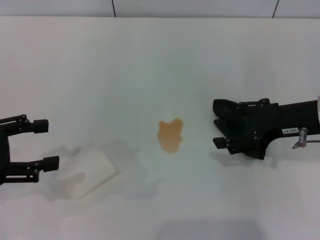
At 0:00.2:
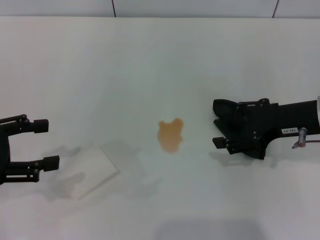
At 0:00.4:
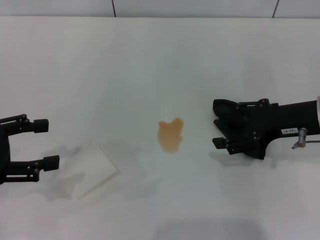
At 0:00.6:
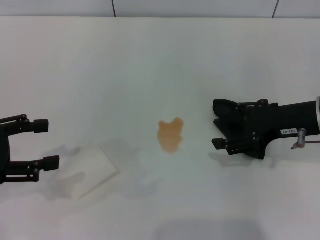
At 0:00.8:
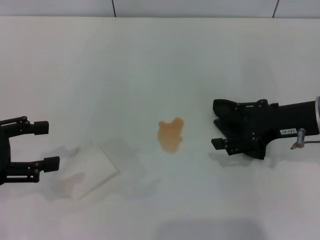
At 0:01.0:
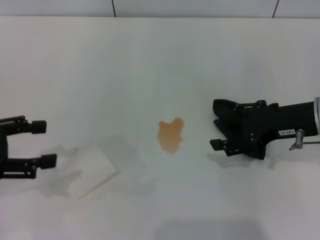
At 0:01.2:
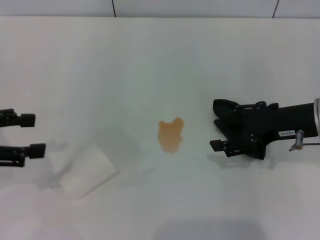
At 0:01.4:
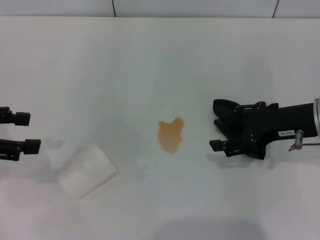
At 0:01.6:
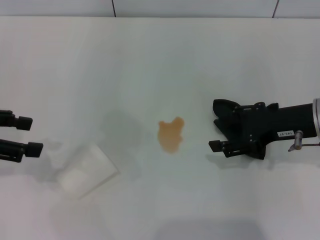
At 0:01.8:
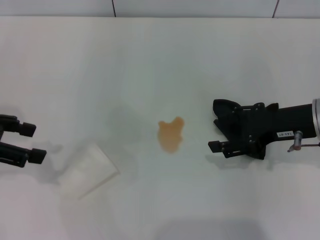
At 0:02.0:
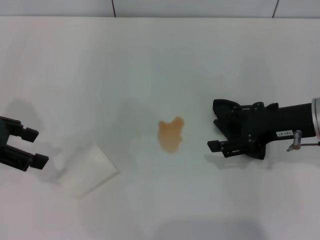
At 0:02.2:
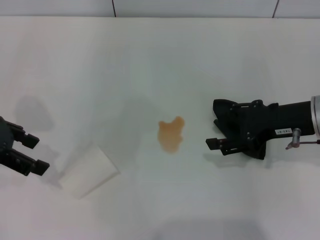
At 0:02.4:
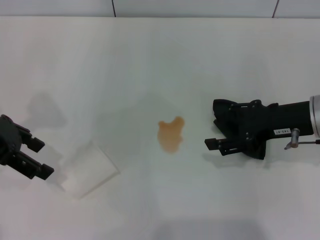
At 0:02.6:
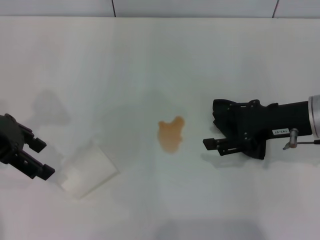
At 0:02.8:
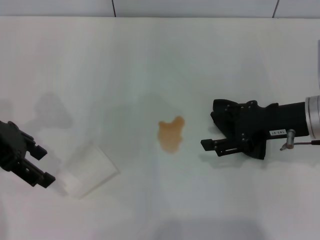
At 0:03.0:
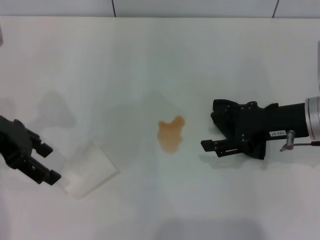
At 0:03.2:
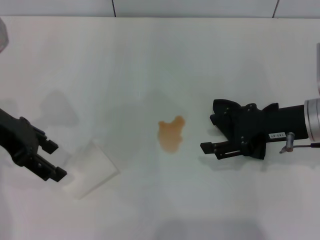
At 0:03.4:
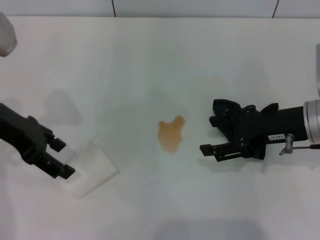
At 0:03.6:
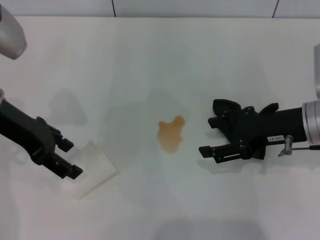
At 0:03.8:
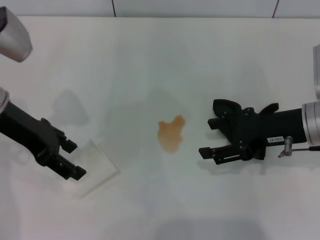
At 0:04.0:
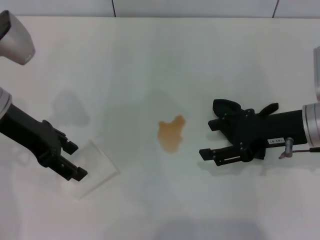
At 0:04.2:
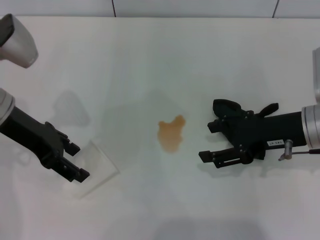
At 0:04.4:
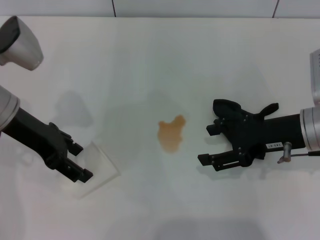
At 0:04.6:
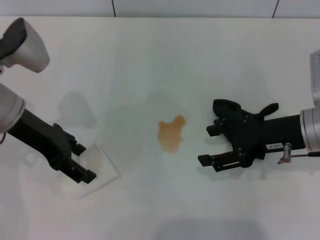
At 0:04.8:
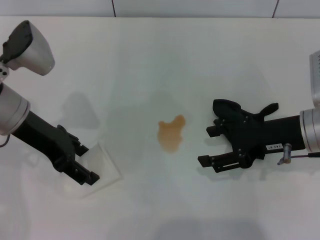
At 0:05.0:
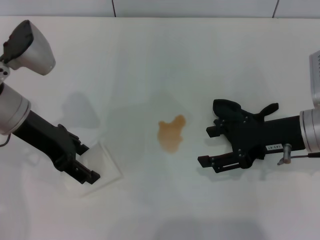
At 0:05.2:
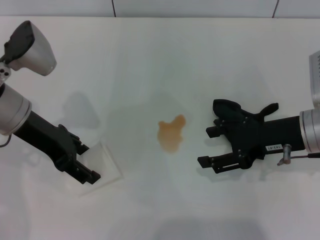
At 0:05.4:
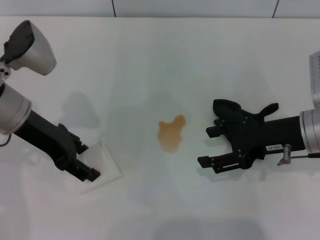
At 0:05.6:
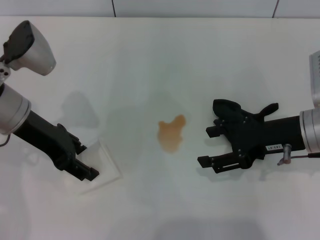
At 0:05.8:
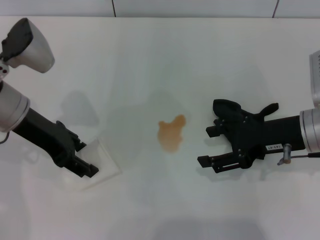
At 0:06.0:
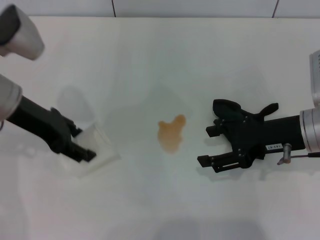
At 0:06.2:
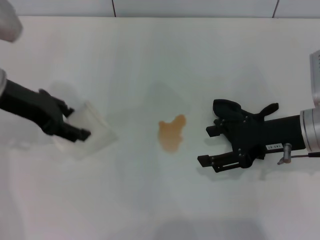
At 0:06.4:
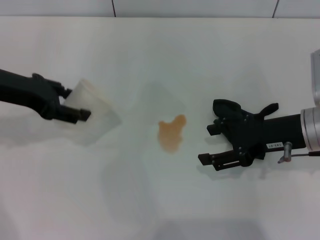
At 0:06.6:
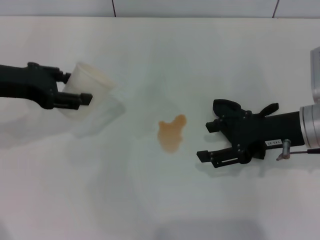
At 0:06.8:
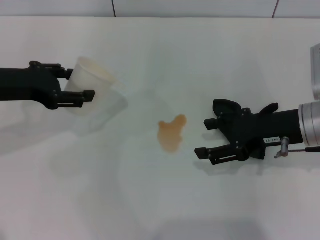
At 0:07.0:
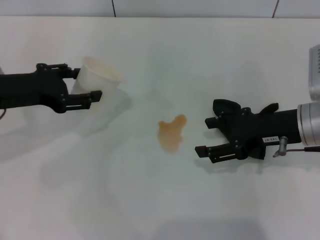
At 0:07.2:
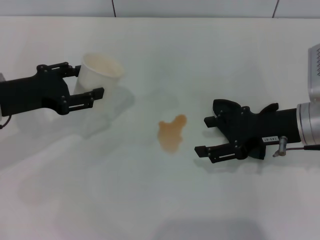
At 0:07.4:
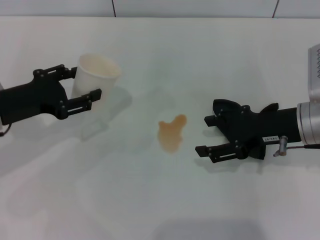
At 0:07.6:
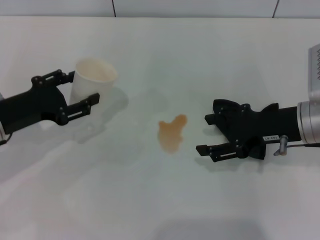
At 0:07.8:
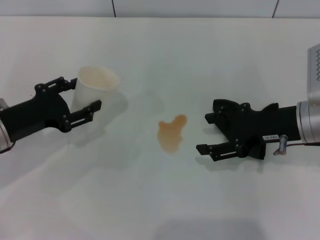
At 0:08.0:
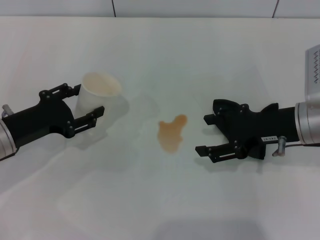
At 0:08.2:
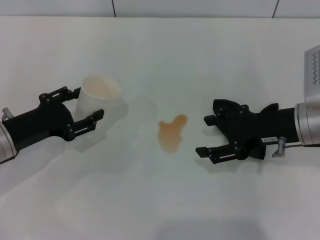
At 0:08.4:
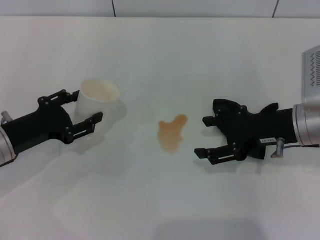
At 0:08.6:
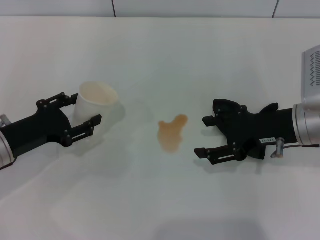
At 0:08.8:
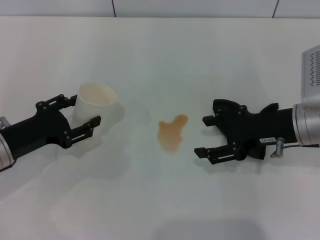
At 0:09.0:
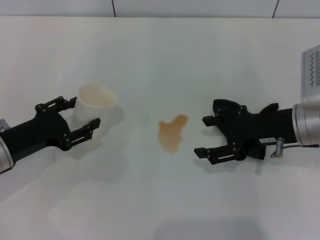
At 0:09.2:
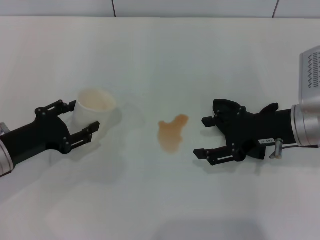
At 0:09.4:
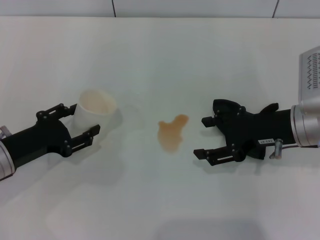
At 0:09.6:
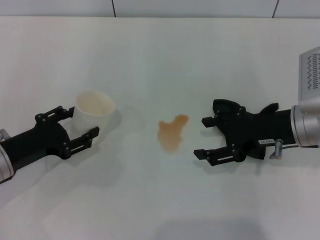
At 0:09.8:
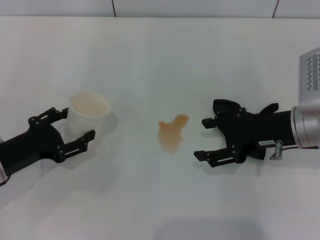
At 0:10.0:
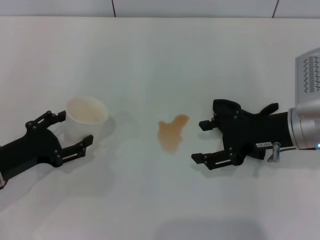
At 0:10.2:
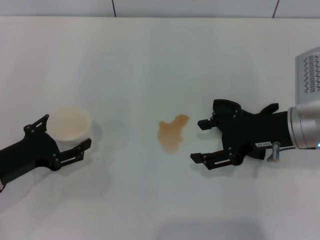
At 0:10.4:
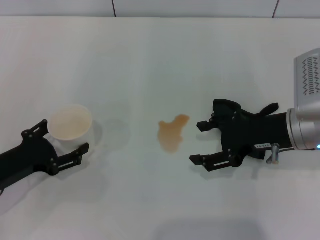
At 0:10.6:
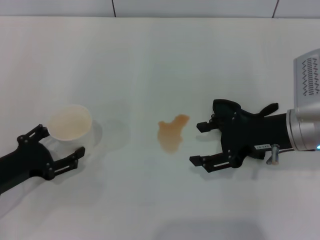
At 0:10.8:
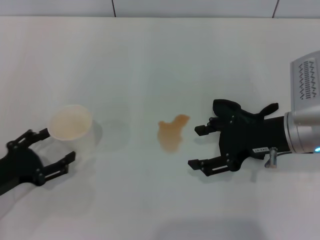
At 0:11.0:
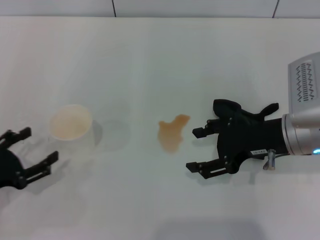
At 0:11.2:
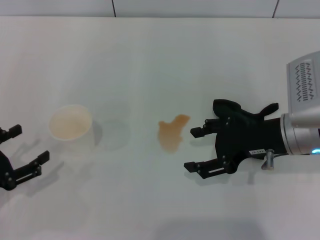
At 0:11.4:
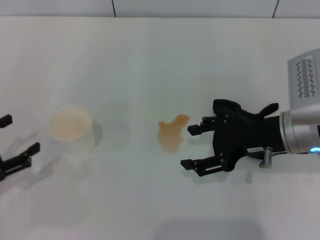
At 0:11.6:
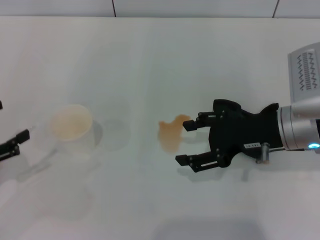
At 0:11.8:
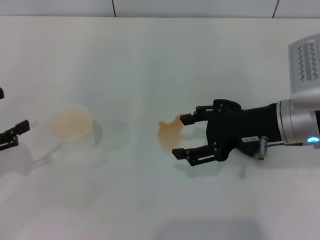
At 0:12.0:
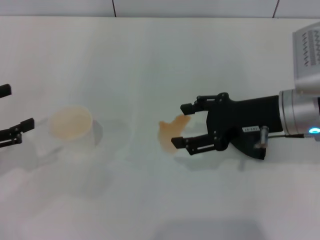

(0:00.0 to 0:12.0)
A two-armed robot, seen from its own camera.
Step, 0:00.0 - 0:05.6: Grasp the paper cup with the left gripper.
Step, 0:06.0 - 0:10.8: Stand the paper cup upright with the left gripper.
0:00.0 - 0:01.6: The left gripper ends up some 5 cm from where it was.
0:01.6 - 0:03.0: The left gripper shifts roughly 10 cm to the right and forward.
0:03.0 - 0:04.4: The left gripper changes place by about 5 cm.
0:04.4 - 0:06.0: The left gripper closes up.
0:06.0 - 0:07.6: The left gripper moves downward and backward, roughly 10 cm.
0:07.6 - 0:09.0: The grippers move only a little.
0:09.0 - 0:10.4: The left gripper opens its fingers.
0:10.4 - 0:12.0: The left gripper is displaced upward and to the left by about 10 cm.

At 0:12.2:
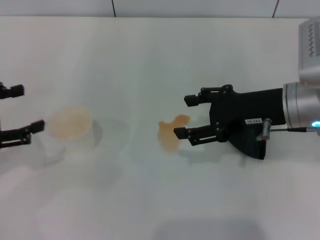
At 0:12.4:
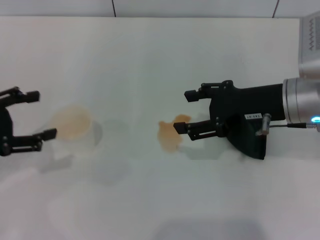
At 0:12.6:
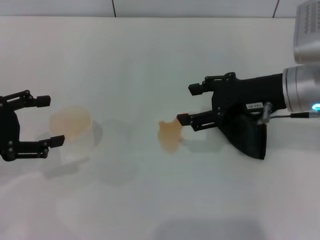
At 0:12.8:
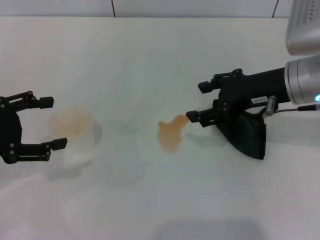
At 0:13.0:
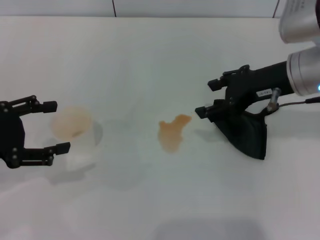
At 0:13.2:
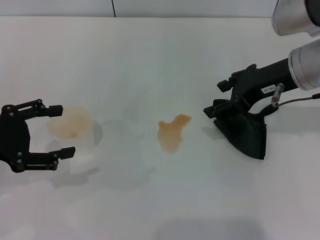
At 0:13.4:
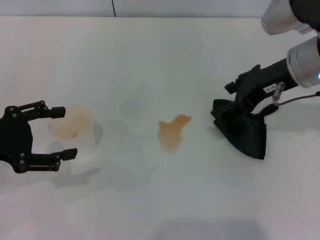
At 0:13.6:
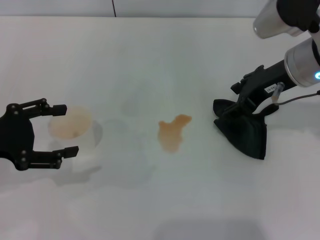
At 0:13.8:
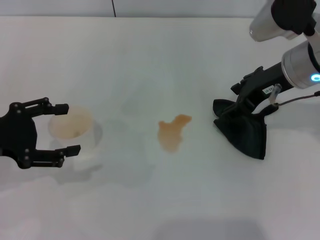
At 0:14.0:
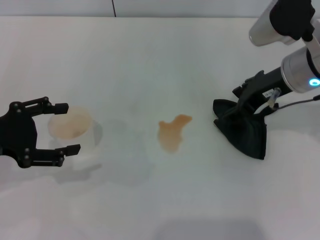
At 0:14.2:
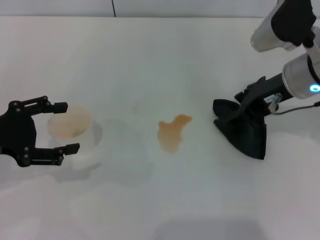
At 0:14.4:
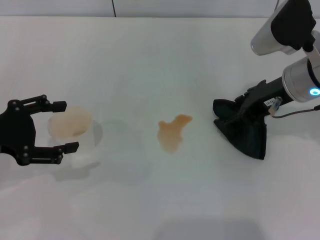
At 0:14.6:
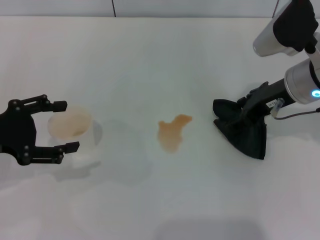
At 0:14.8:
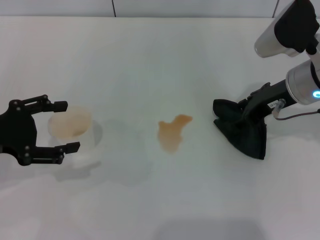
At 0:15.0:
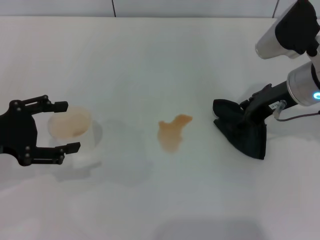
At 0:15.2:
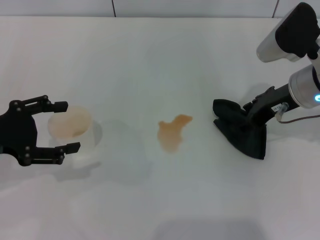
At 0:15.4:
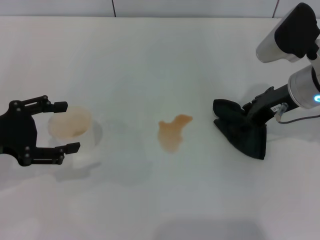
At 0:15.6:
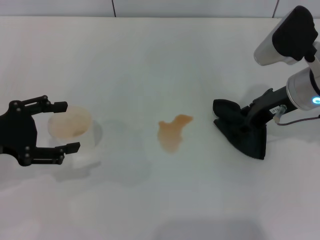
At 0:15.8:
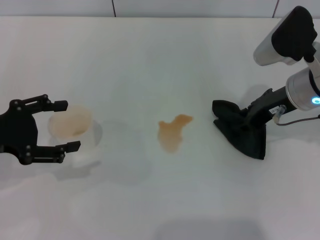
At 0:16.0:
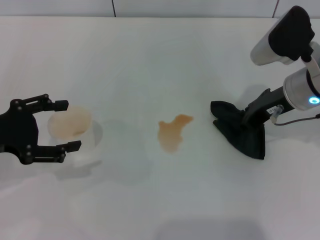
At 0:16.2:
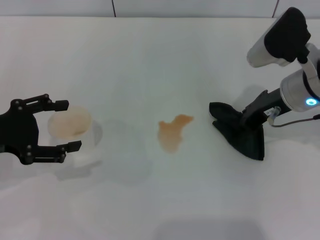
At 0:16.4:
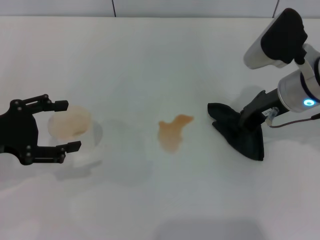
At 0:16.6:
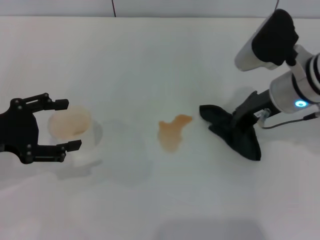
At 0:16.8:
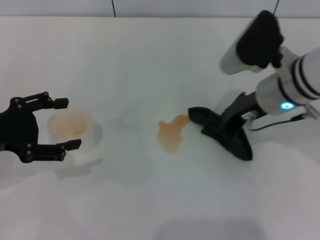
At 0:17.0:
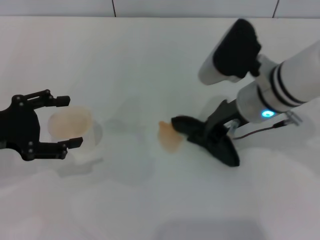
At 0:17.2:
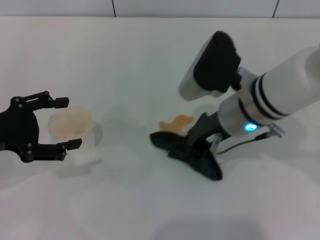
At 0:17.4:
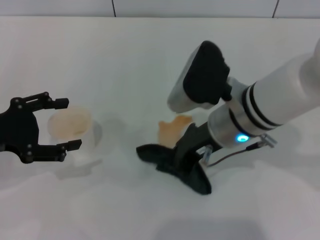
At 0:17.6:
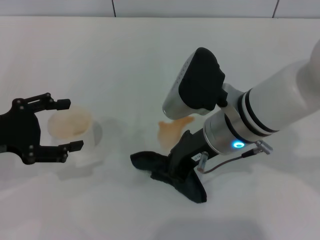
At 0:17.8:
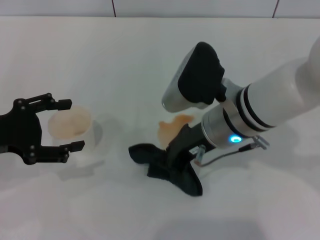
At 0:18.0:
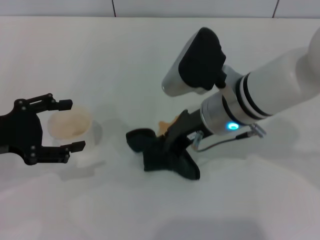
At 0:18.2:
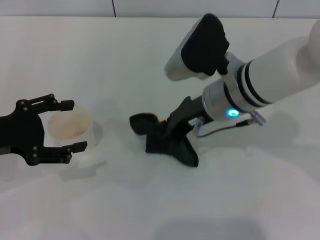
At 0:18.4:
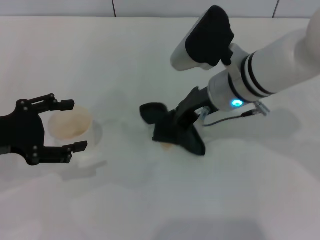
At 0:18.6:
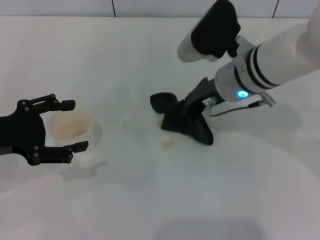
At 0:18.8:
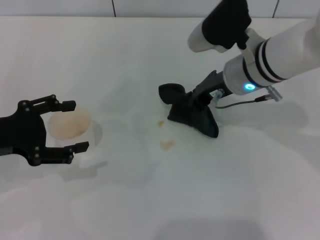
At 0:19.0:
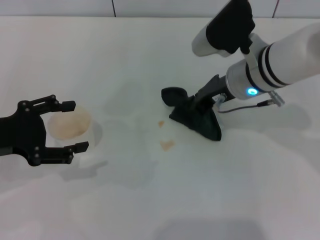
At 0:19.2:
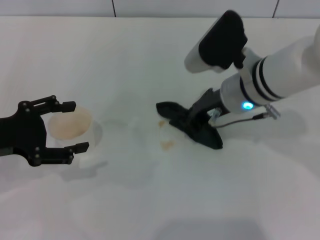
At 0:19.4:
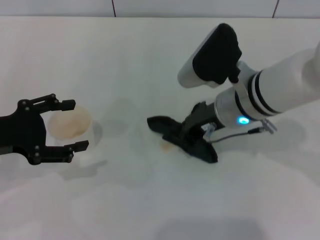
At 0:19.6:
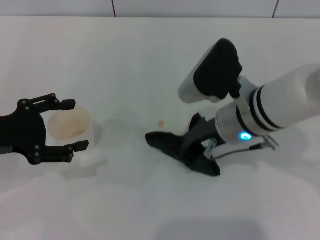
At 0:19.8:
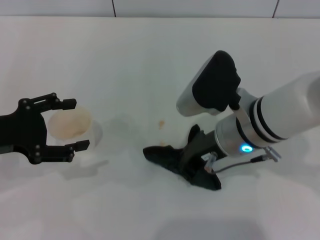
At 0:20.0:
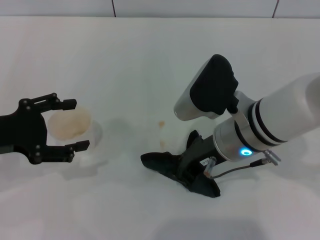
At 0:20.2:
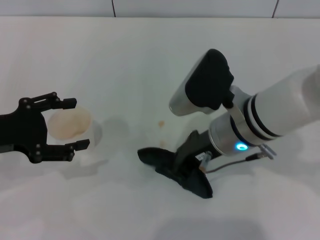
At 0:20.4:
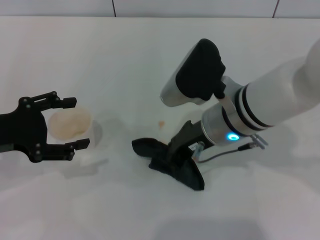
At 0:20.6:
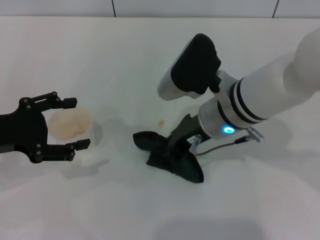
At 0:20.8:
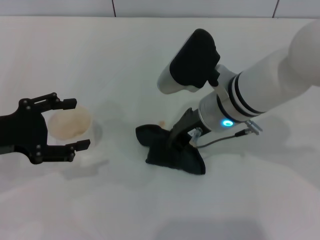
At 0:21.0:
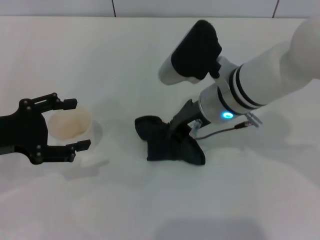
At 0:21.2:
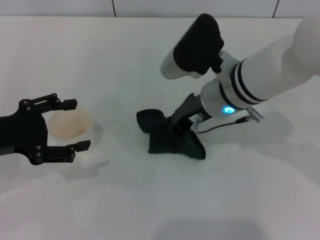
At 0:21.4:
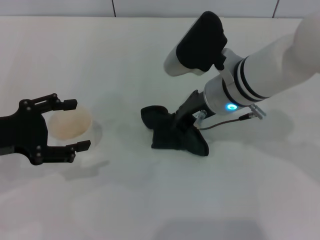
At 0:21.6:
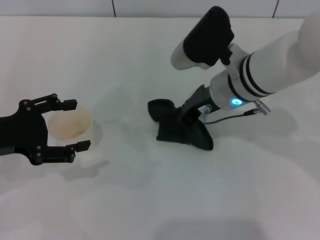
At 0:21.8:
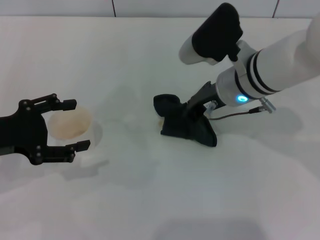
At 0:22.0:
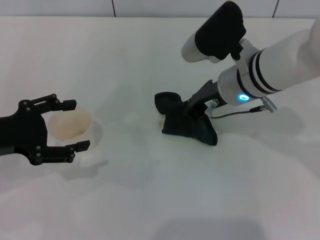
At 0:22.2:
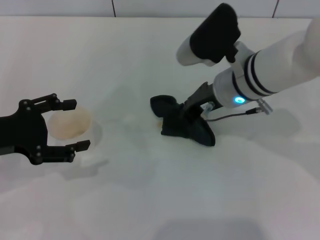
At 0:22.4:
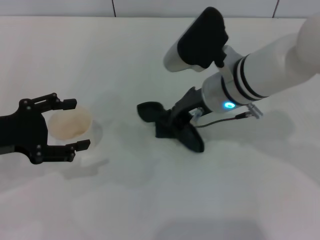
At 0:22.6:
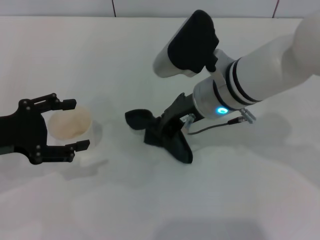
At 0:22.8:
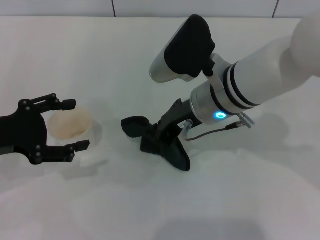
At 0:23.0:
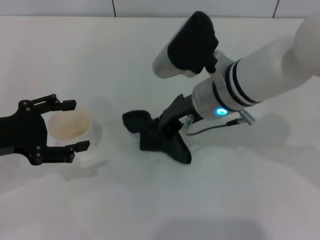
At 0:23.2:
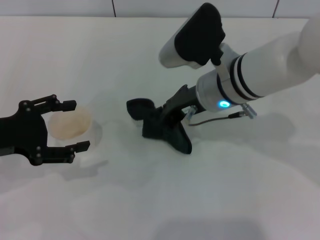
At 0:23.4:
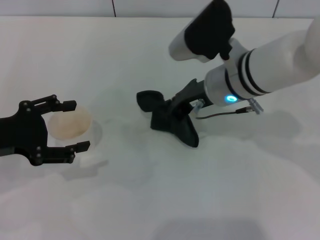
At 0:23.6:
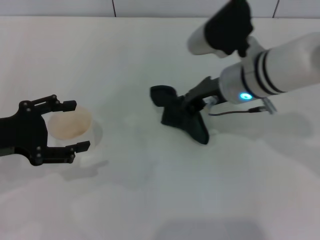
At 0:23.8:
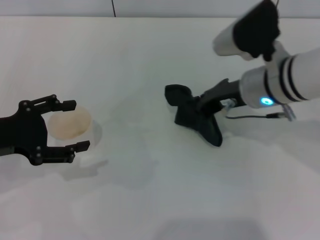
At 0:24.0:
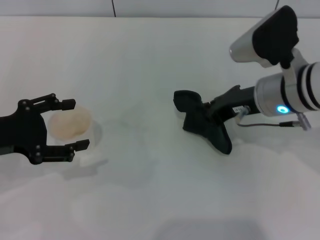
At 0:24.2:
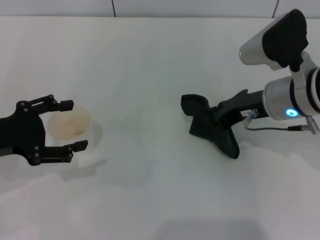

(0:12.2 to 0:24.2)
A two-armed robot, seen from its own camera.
Step, 0:12.2 - 0:16.0: Grasp the rag with the right gripper.
0:12.2 - 0:13.8: The right gripper heads forward, covering some 5 cm.
0:13.8 - 0:15.2: The grippers move only a little.
0:15.2 - 0:16.6: The right gripper closes its fingers.
0:16.6 - 0:18.2: The right gripper shifts approximately 10 cm to the left.
0:19.8 - 0:21.2: The right gripper ends up approximately 5 cm from where it was.
0:21.2 - 0:22.6: There are only small adjustments of the grippers.
0:22.6 - 0:24.2: The right gripper is displaced to the right by roughly 10 cm.
